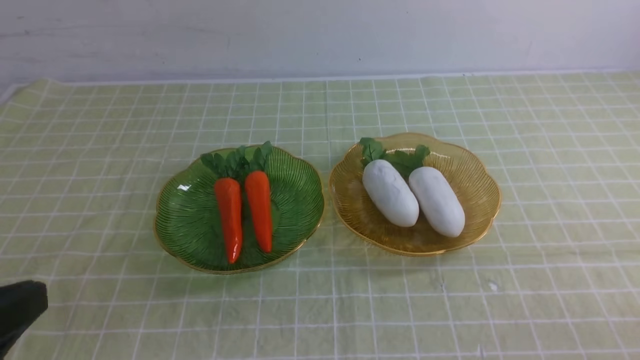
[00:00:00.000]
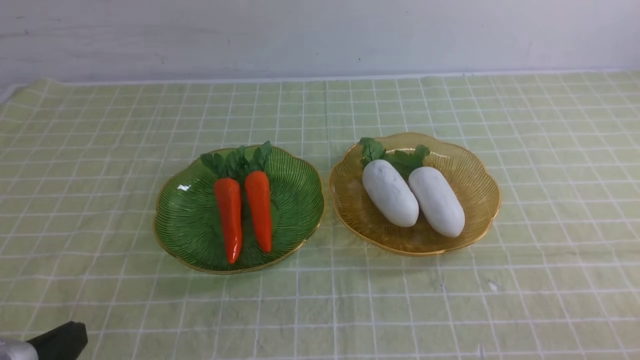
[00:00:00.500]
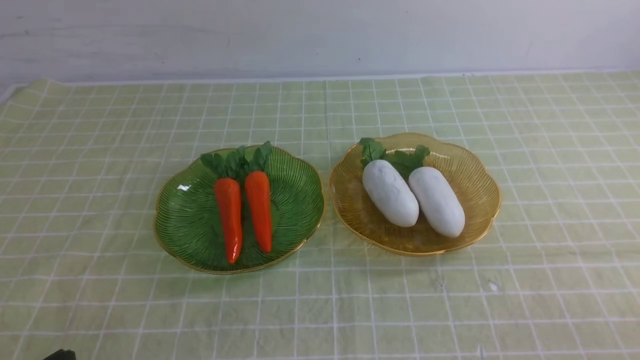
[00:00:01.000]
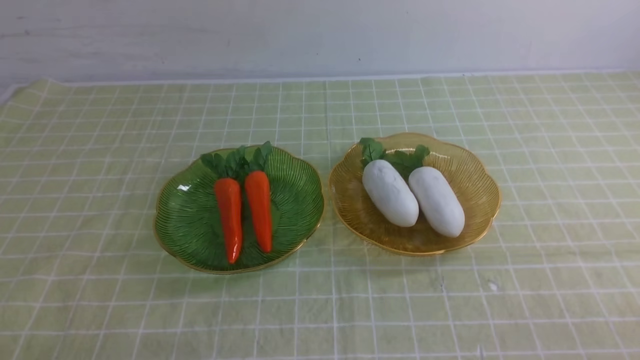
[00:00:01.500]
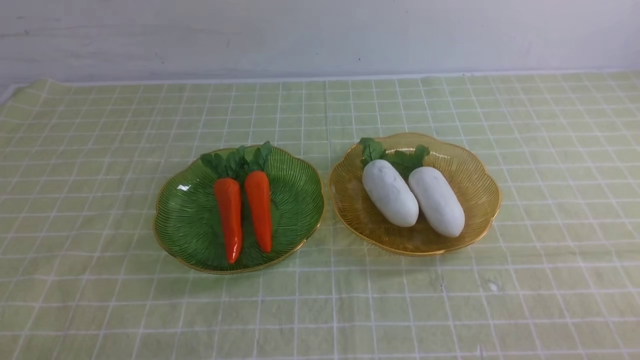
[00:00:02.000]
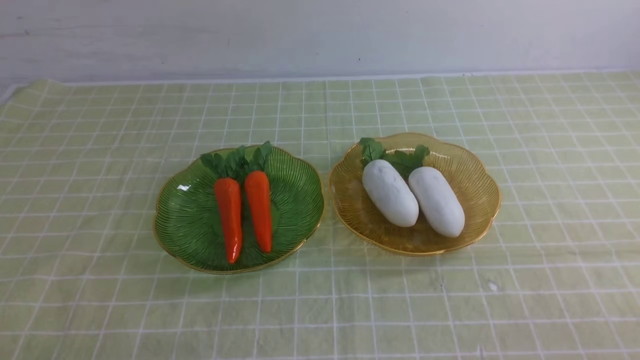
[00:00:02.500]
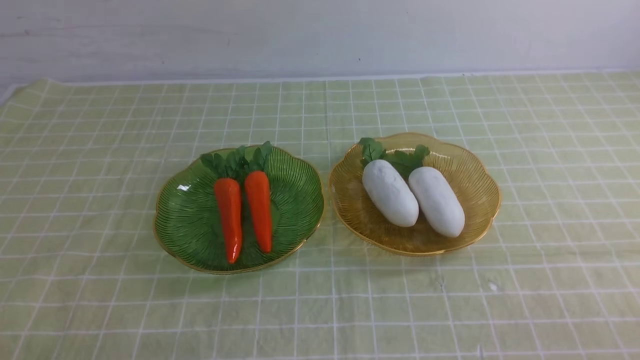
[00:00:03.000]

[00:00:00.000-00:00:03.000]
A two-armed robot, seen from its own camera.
00:00:00.000 to 00:00:01.500: The left gripper goes approximately 15 cm downward.
00:00:01.500 to 00:00:03.000: Both grippers stay put.
